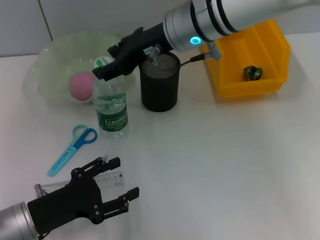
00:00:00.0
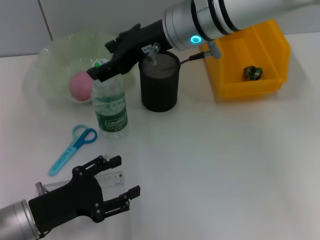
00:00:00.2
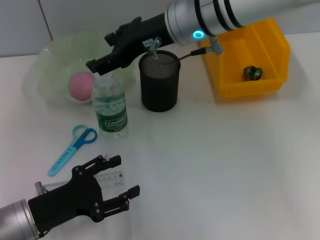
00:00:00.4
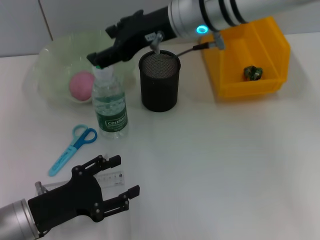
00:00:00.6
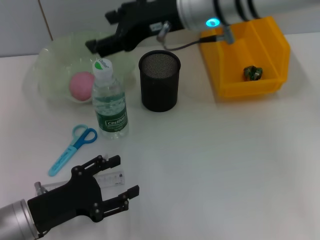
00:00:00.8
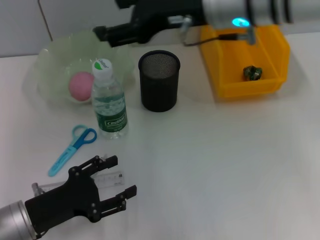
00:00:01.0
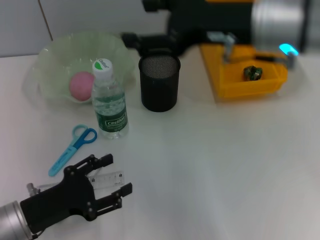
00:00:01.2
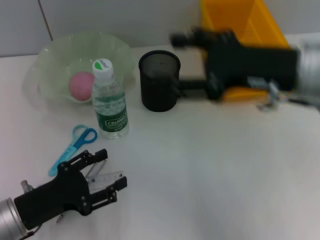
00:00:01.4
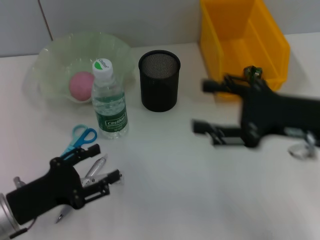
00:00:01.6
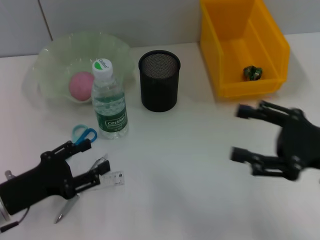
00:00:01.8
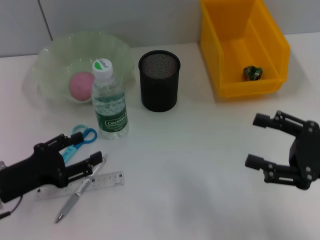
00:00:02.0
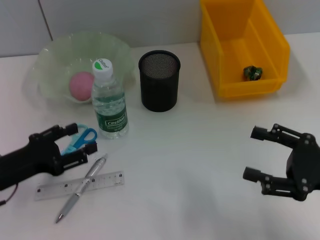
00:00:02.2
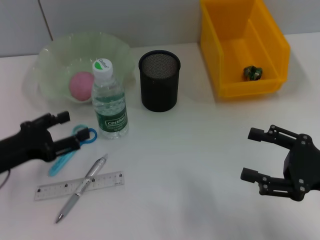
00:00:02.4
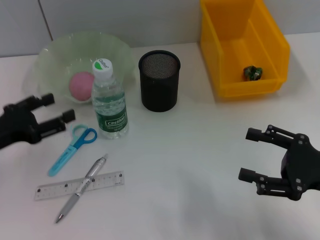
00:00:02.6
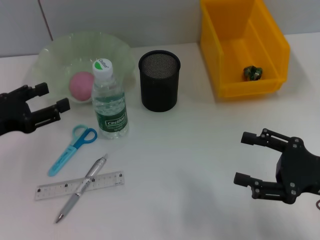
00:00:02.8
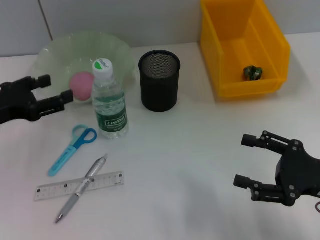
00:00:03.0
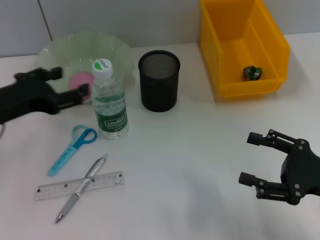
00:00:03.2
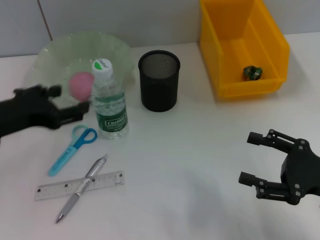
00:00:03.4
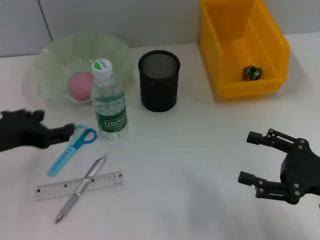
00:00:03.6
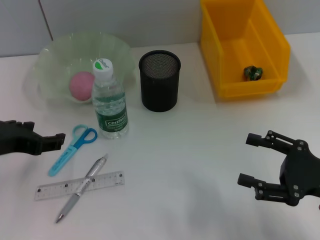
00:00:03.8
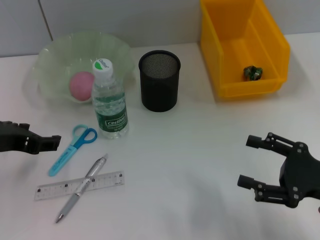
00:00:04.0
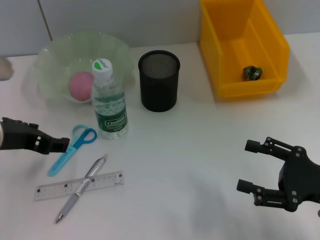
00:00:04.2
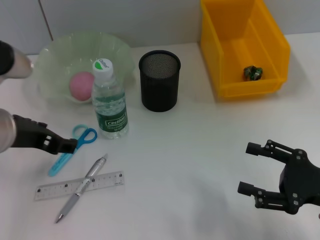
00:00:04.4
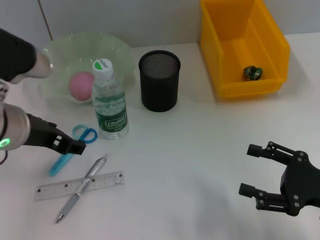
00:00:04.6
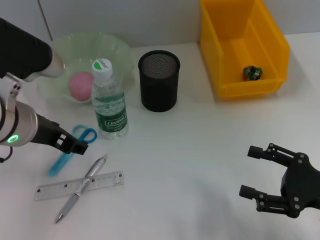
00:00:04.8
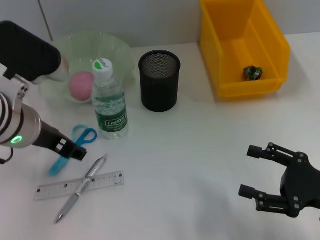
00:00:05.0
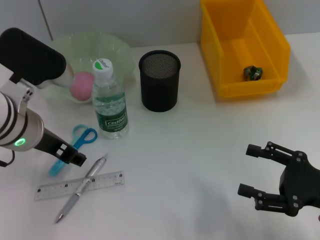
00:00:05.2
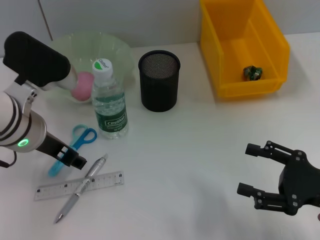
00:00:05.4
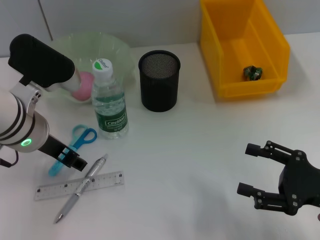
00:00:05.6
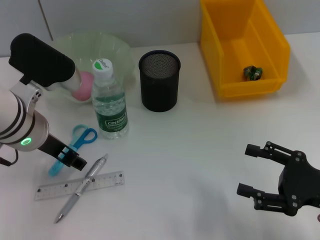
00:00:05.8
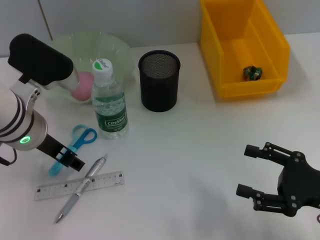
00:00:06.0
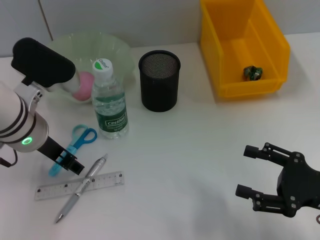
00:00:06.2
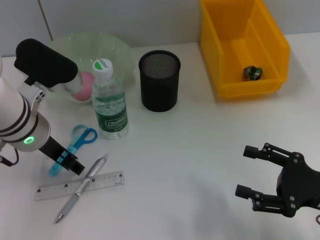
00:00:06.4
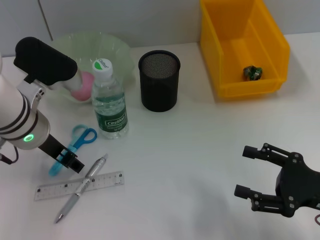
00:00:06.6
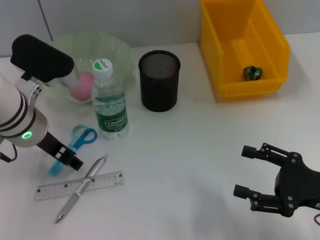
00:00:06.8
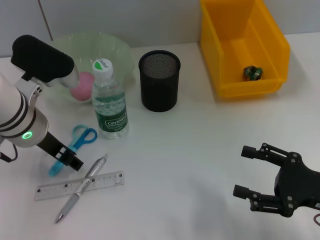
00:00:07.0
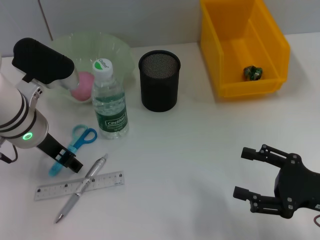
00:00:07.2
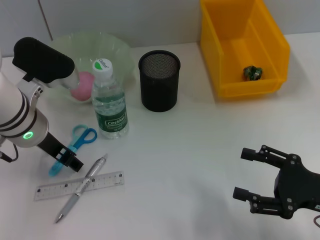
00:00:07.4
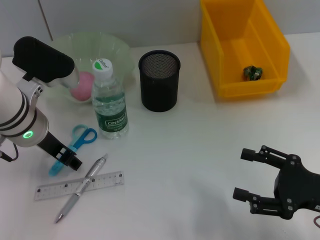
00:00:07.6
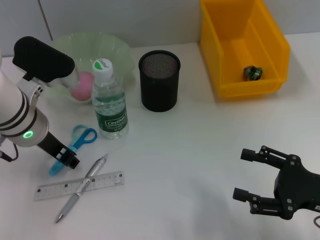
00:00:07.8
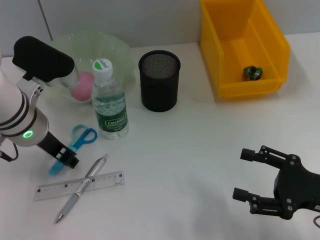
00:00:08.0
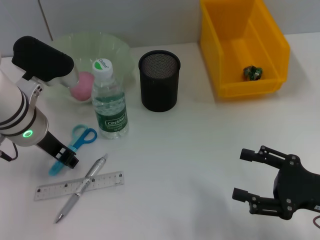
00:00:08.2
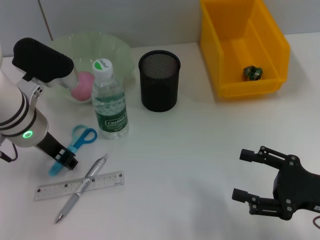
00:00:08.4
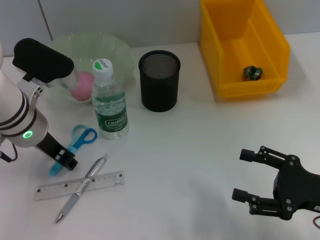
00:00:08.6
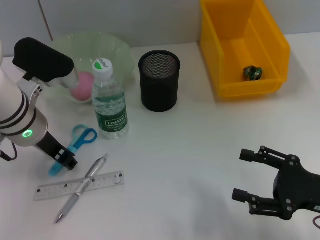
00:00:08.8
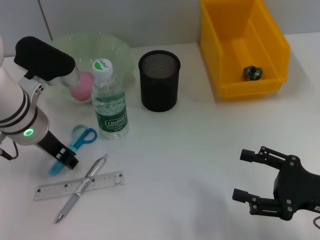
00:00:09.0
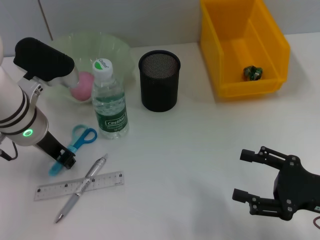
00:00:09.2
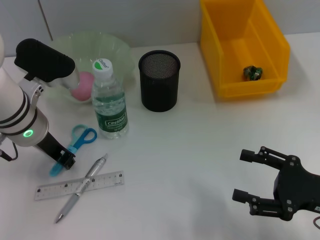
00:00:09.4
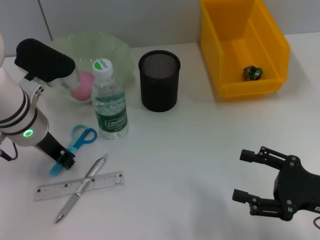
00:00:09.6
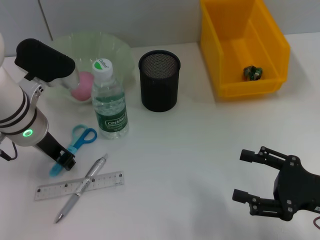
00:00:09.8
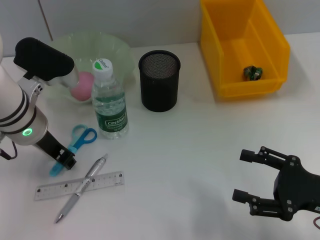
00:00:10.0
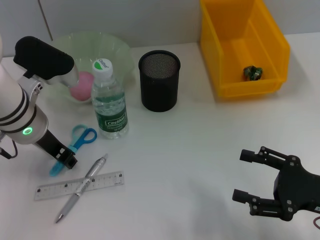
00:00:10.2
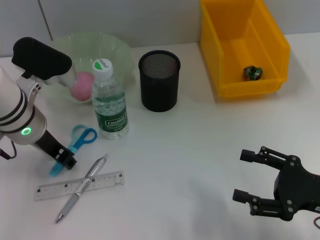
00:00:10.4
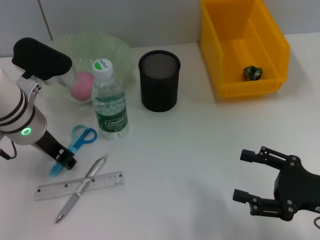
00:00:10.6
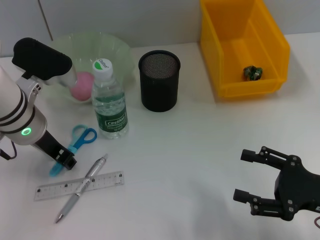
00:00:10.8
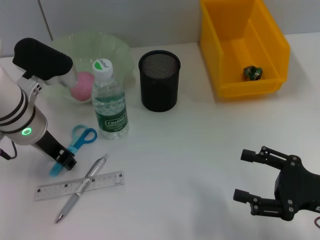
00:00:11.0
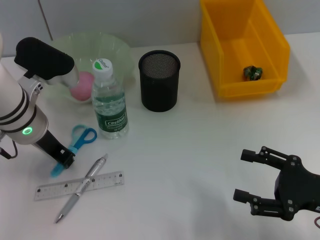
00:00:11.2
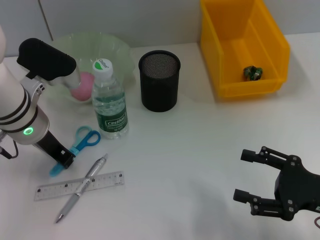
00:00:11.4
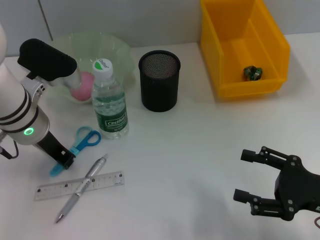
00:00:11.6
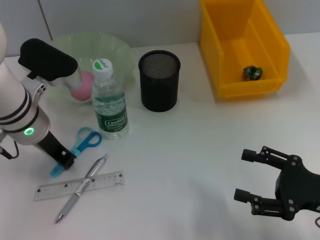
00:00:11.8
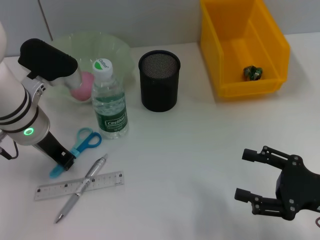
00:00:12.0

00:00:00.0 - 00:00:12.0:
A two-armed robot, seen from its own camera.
Step, 00:00:00.4 - 00:00:12.0: Grab the blue scissors with the left hand.
00:00:00.0 - 00:00:01.6: The right gripper travels to the right and backward by some 25 cm, and opens its fingers.
00:00:01.6 - 00:00:03.0: The right gripper is displaced downward by about 10 cm. Meanwhile the left gripper shifts roughly 10 cm forward and upward.
00:00:03.0 - 00:00:04.4: The left gripper goes some 10 cm to the right and upward.
00:00:04.4 - 00:00:06.0: The left gripper shifts by approximately 5 cm.
00:00:06.0 - 00:00:07.6: The grippers move only a little.
00:00:07.6 - 00:00:10.4: Both grippers stay put.
00:00:10.4 - 00:00:12.0: The left gripper closes up.

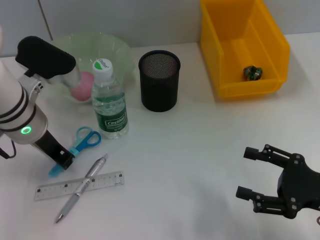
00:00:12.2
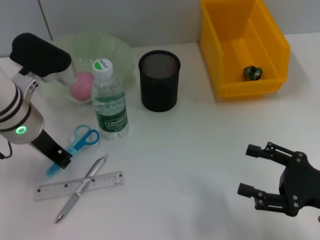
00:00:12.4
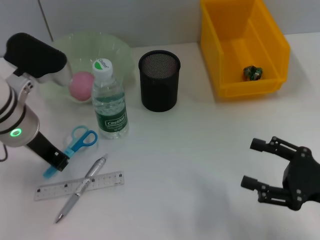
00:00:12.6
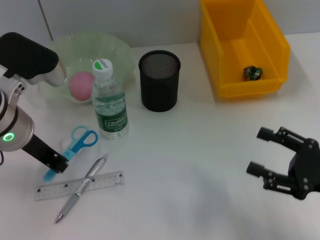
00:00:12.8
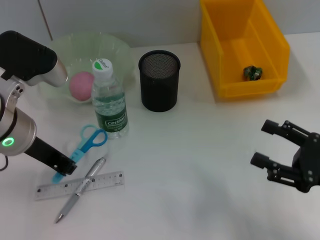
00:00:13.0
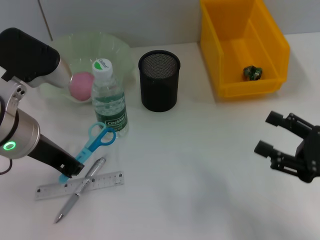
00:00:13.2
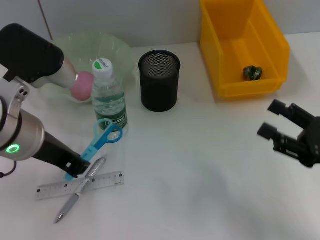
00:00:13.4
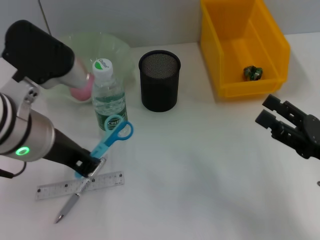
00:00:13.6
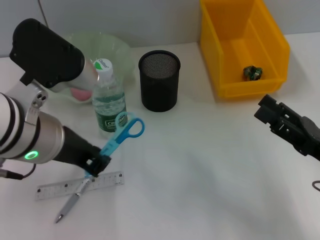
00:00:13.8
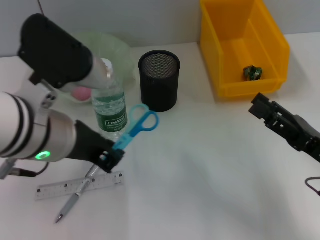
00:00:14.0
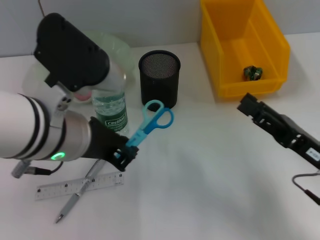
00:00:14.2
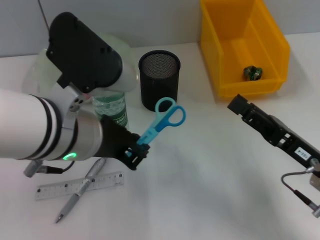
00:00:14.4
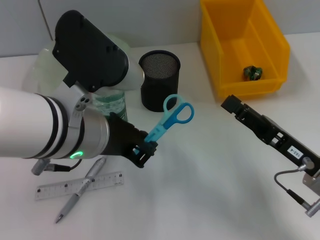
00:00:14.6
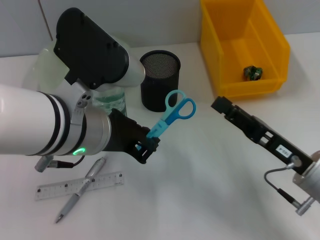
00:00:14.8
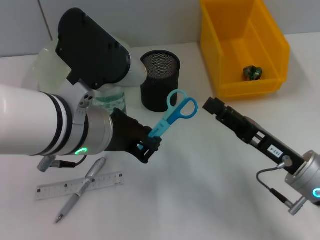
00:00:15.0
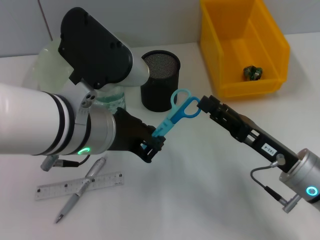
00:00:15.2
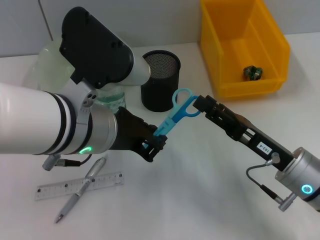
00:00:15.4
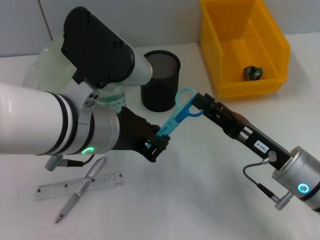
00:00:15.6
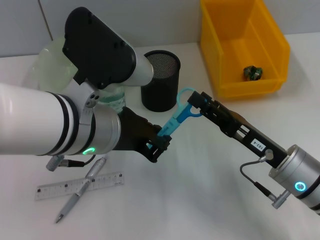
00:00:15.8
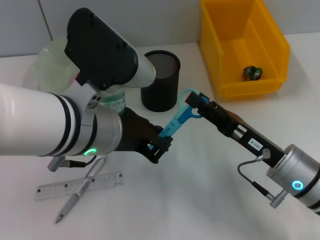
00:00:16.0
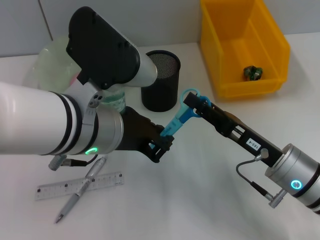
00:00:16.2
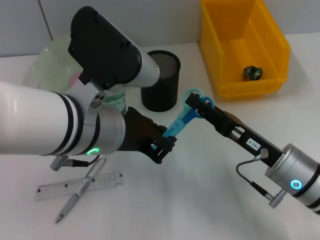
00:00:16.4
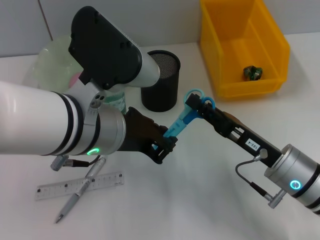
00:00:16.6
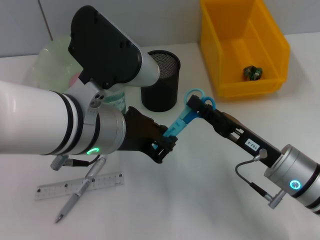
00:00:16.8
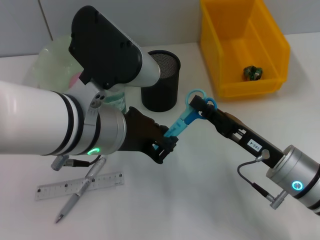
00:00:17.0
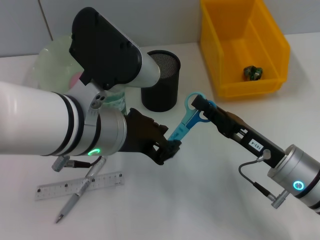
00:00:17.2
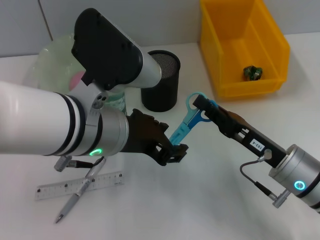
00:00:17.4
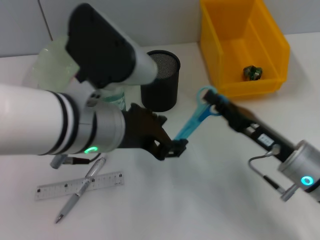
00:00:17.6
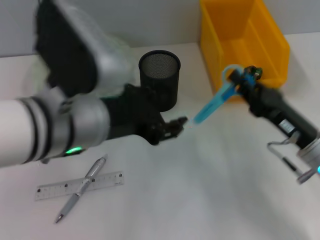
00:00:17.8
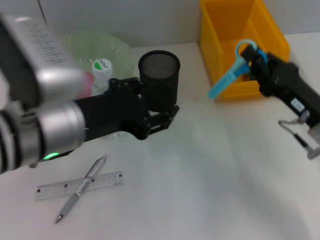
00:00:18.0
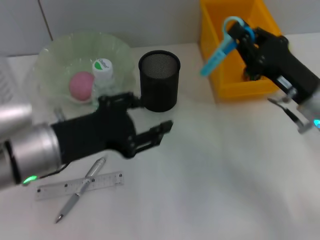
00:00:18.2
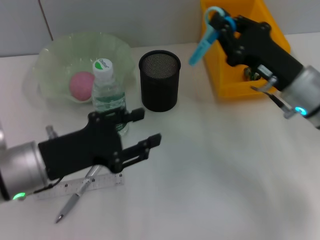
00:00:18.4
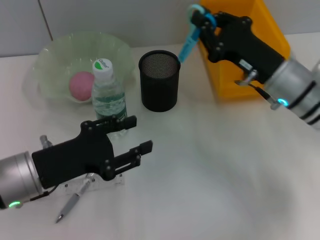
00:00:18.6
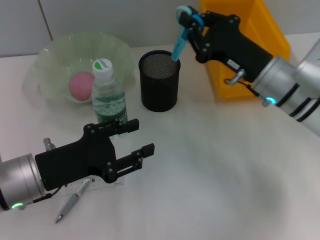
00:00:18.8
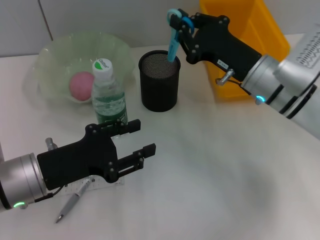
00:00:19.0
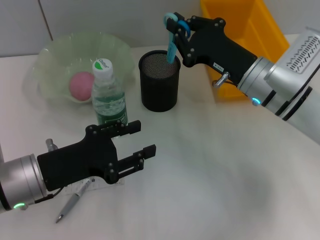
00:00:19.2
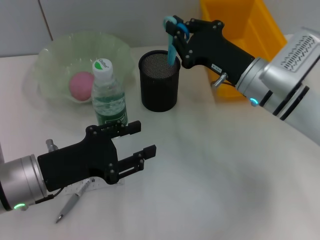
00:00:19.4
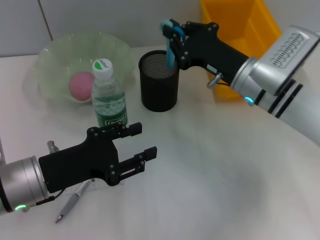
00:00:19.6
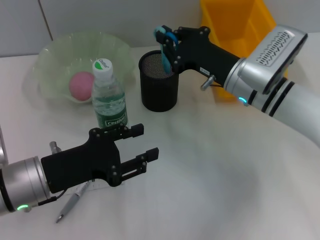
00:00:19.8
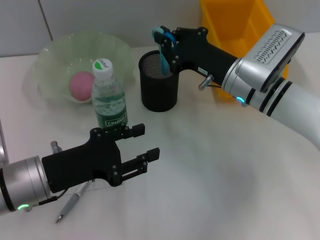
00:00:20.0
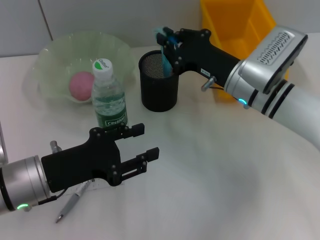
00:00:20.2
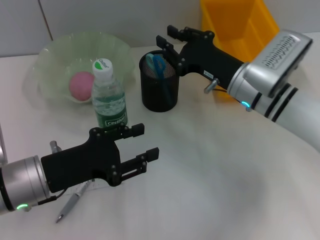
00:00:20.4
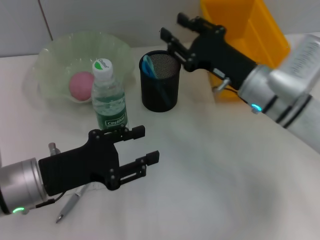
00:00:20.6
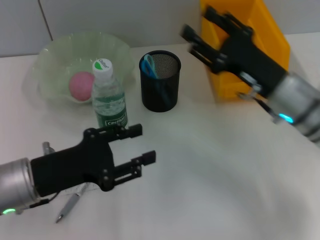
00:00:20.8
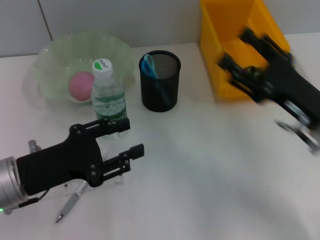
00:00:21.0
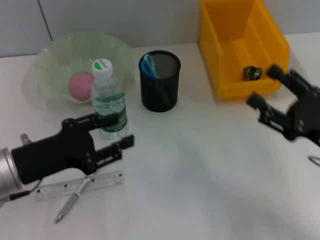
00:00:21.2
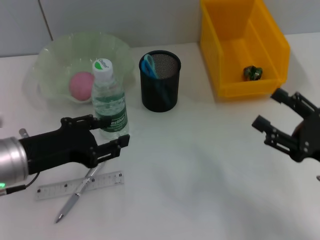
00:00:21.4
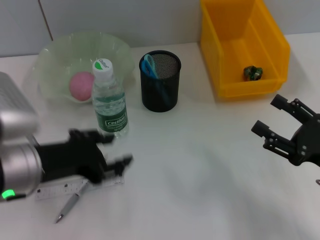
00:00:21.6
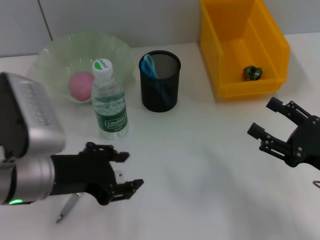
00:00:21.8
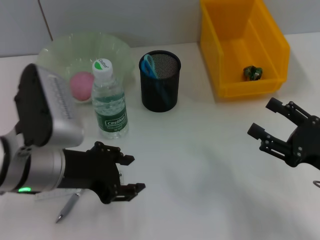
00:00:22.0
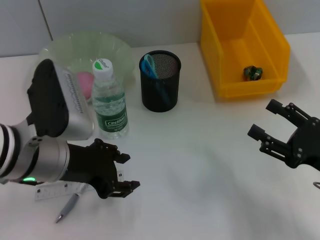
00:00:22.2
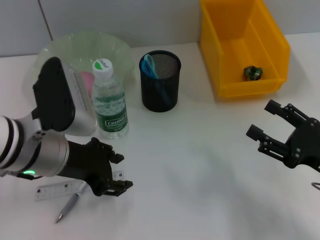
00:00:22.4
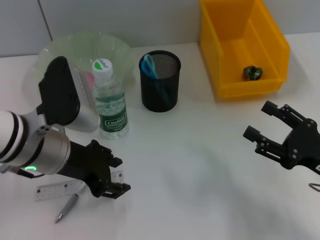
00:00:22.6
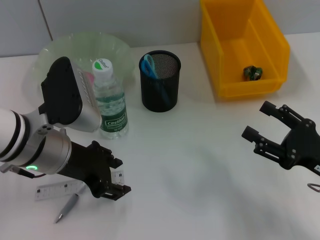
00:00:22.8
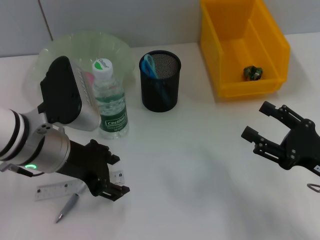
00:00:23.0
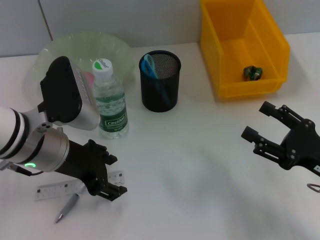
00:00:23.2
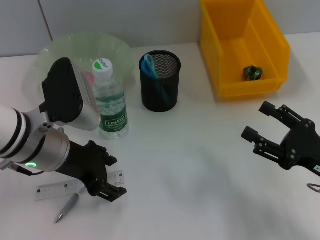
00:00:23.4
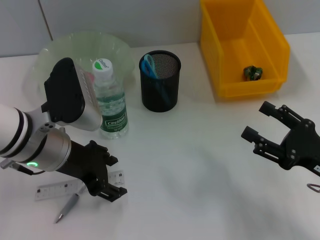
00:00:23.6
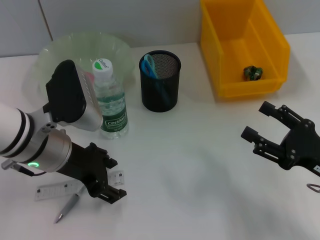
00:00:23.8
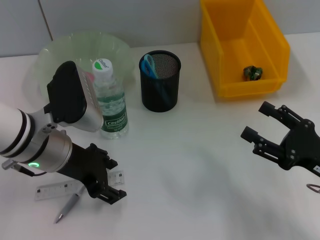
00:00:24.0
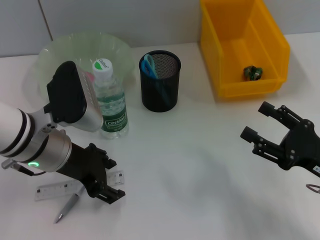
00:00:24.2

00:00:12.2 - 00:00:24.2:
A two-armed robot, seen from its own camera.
Step, 00:00:12.2 - 00:00:17.2: Pass the blue scissors from the left hand to the right hand.
Step, 00:00:17.4 - 00:00:20.4: Place the blue scissors into the pen holder with the left hand.
00:00:12.2 - 00:00:13.8: The left gripper travels backward and upward by approximately 10 cm.
00:00:13.8 - 00:00:15.2: The right gripper is displaced to the left by about 5 cm.
00:00:15.2 - 00:00:16.6: The right gripper closes its fingers.
00:00:16.6 - 00:00:18.2: The right gripper travels forward and upward by roughly 10 cm, and closes. The left gripper travels to the left by some 10 cm, and opens.
00:00:18.2 - 00:00:19.8: The left gripper is displaced downward by roughly 5 cm; the right gripper travels to the left and forward by about 10 cm.
00:00:19.8 - 00:00:21.2: The right gripper heads backward and to the right, covering about 20 cm, and opens up.
00:00:21.2 - 00:00:22.6: The left gripper is displaced to the right and forward by about 10 cm.
00:00:22.6 - 00:00:24.2: The grippers stay close to where they were, moving slightly.
